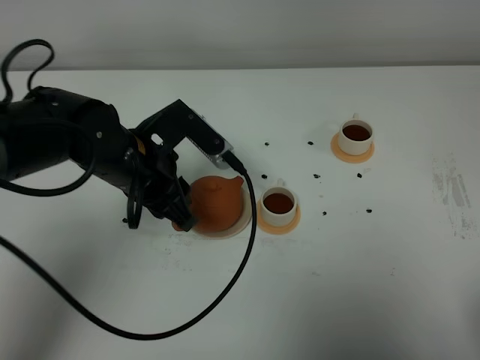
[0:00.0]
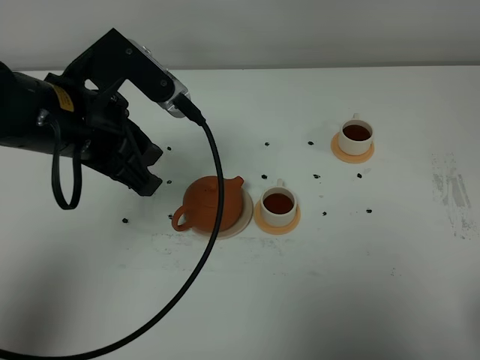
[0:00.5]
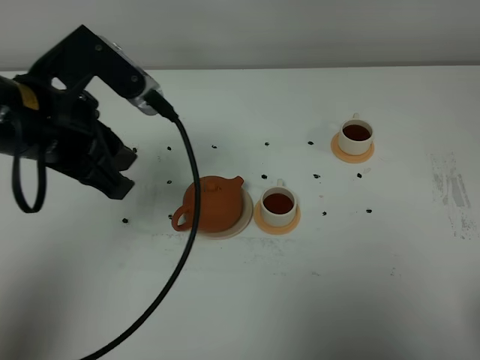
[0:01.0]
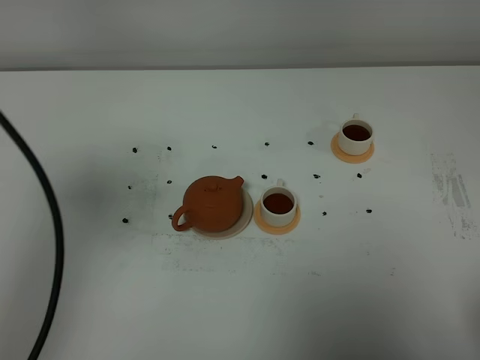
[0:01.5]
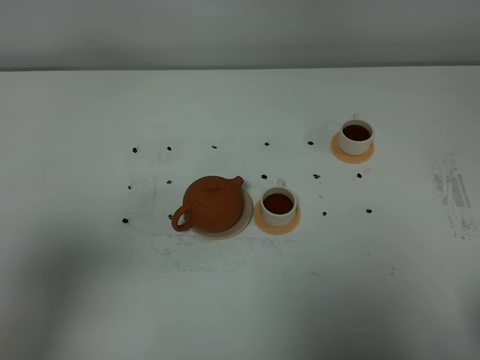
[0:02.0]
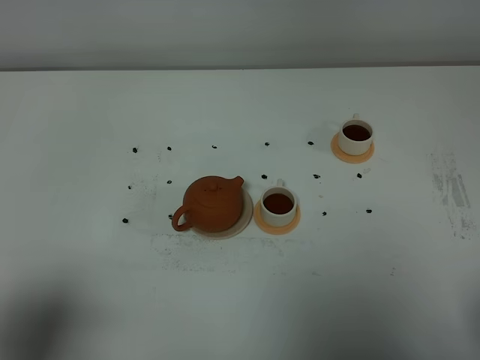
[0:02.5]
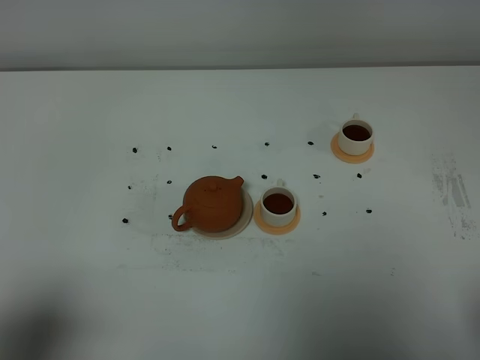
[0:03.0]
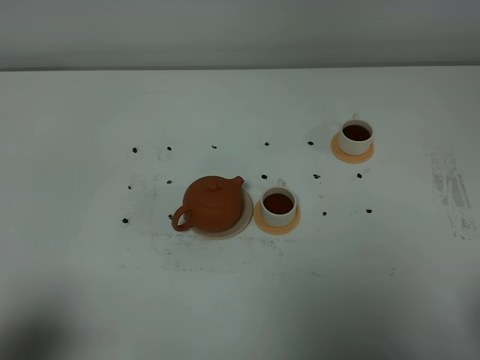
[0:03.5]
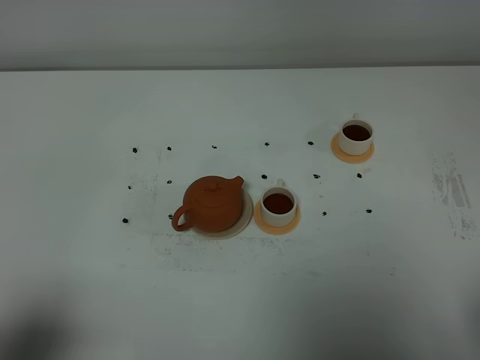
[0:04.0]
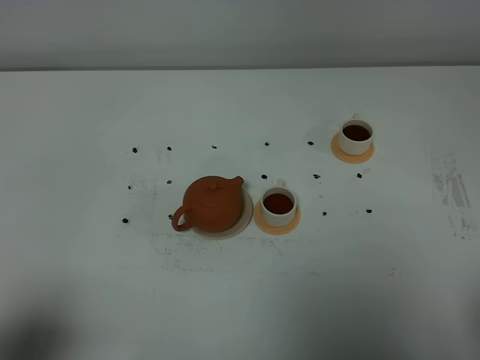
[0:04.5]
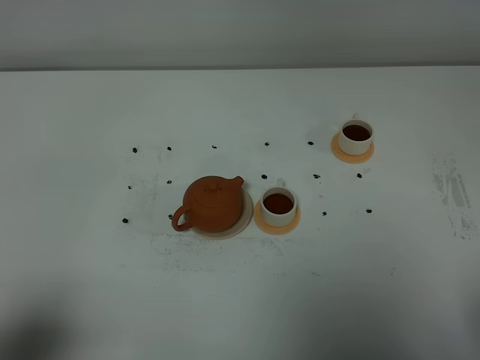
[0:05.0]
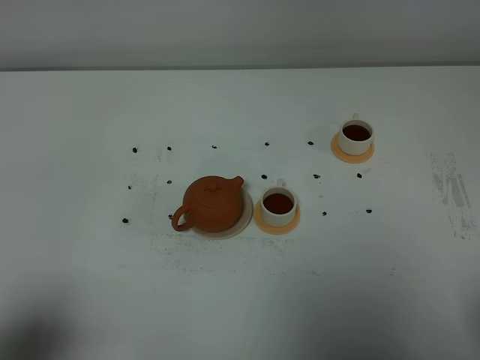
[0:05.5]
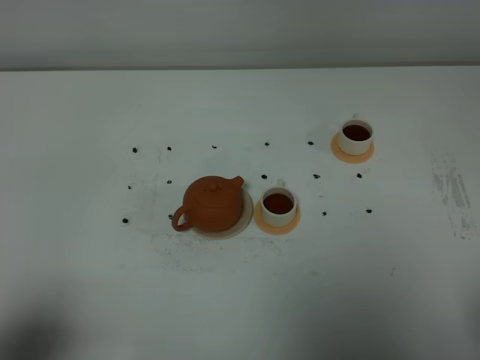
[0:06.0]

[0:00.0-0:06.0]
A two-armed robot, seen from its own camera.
Task of the whole recording: grasp the brown teapot and pour the tea into the two white teacups one by one, put the brown teapot back in its original place.
0:00.0 to 0:02.0: The left gripper travels backward, upward and to the left by approximately 35 cm.
0:02.0 to 0:04.0: The left gripper goes about 15 cm downward and backward.
0:04.0 to 0:06.0: Both grippers stay about where they are.
